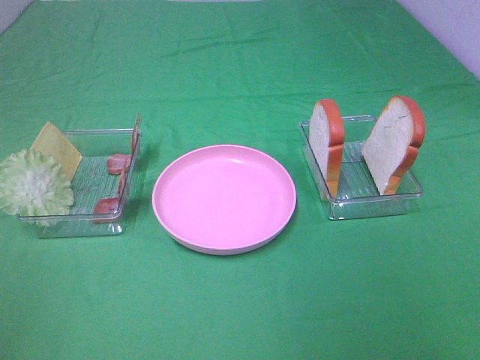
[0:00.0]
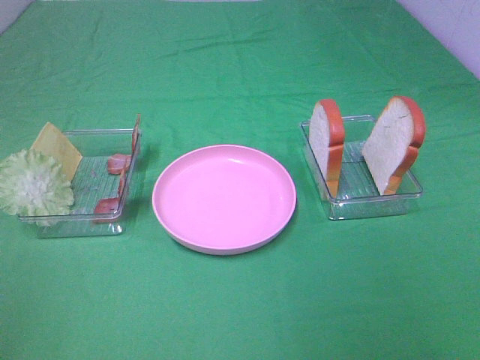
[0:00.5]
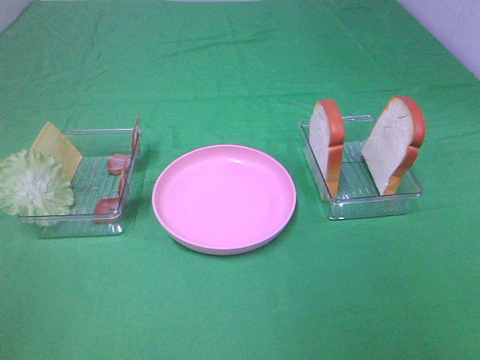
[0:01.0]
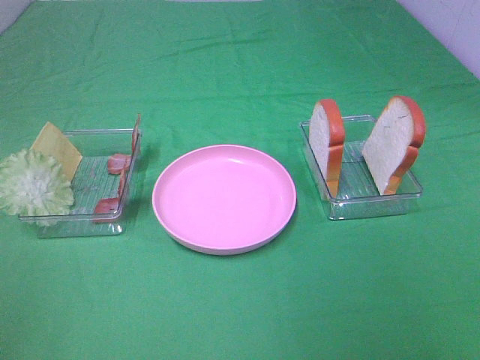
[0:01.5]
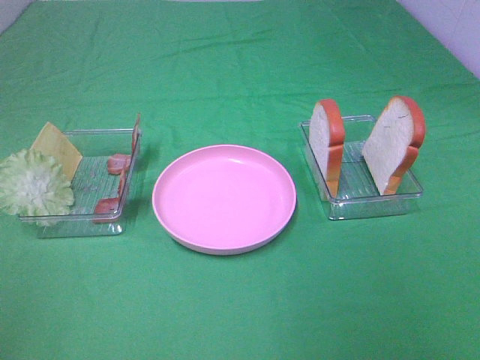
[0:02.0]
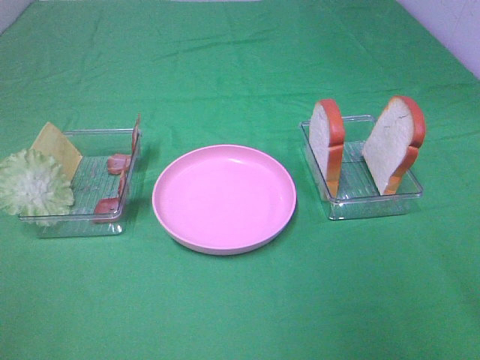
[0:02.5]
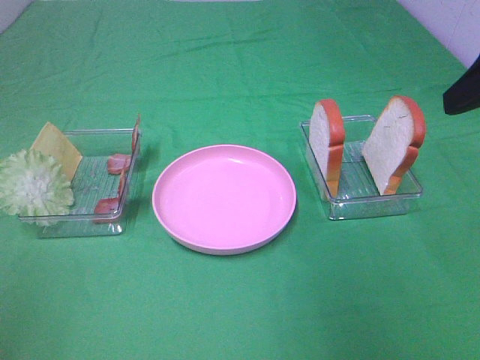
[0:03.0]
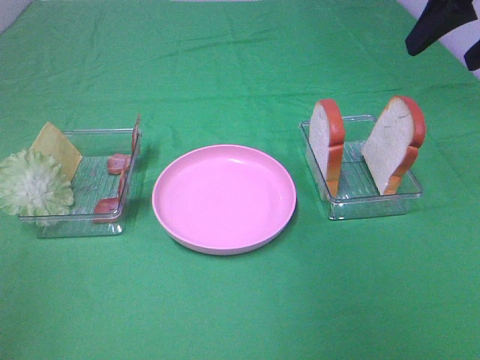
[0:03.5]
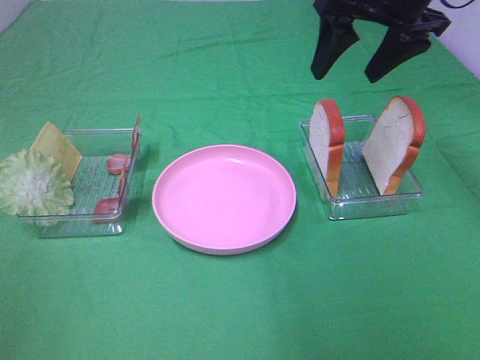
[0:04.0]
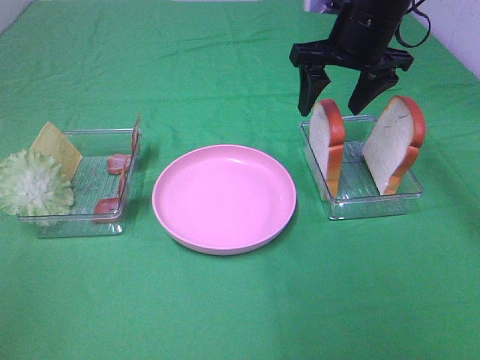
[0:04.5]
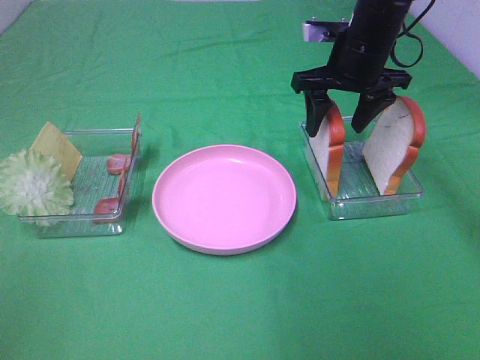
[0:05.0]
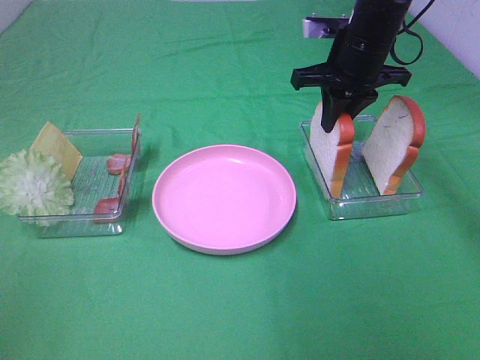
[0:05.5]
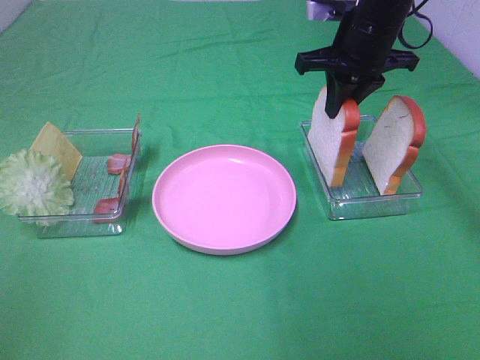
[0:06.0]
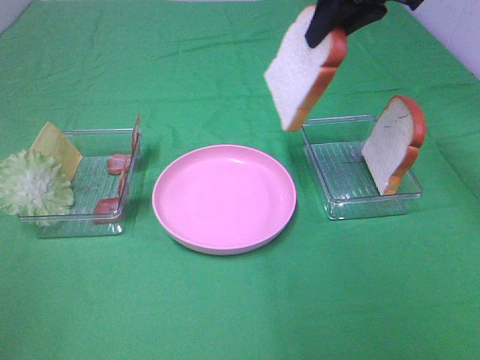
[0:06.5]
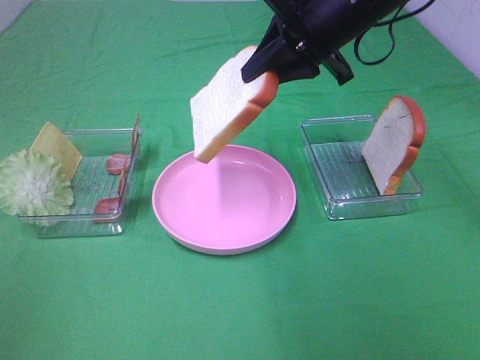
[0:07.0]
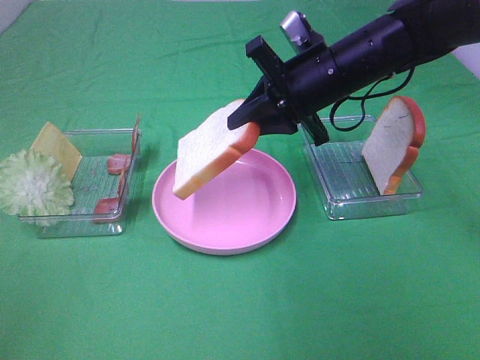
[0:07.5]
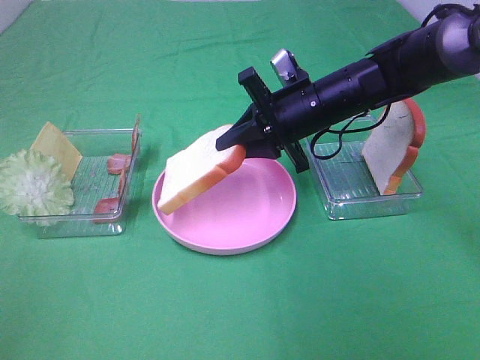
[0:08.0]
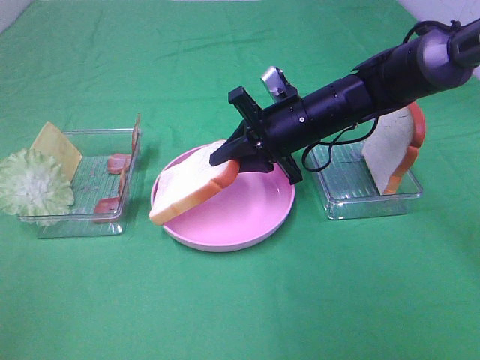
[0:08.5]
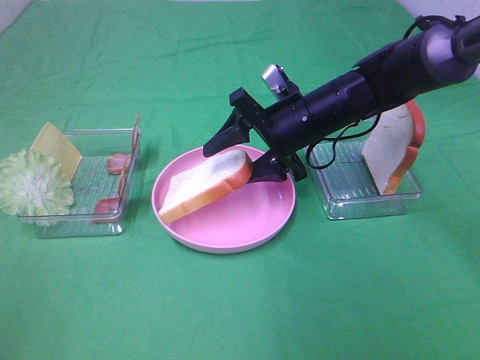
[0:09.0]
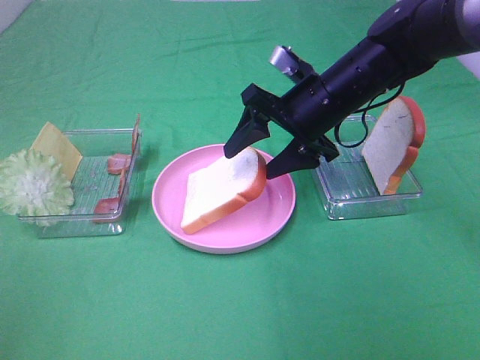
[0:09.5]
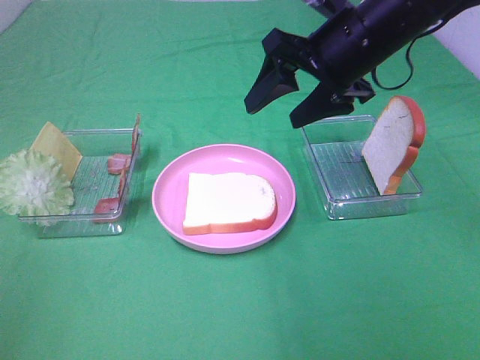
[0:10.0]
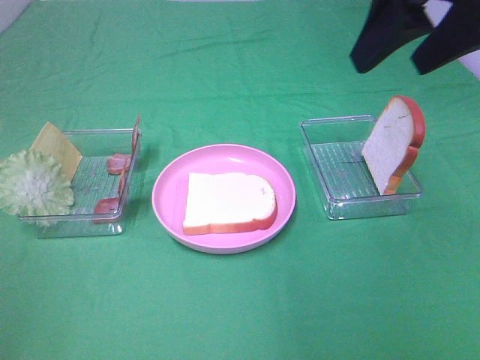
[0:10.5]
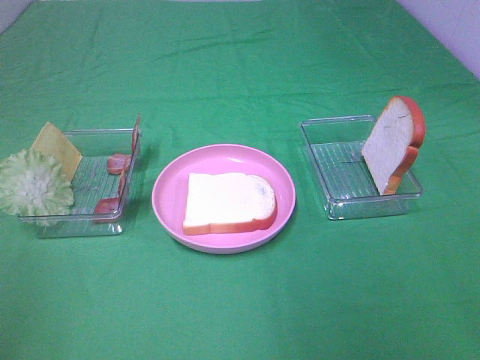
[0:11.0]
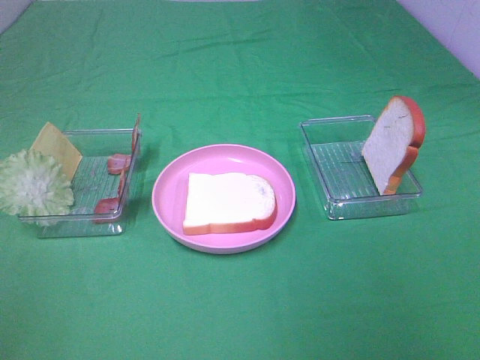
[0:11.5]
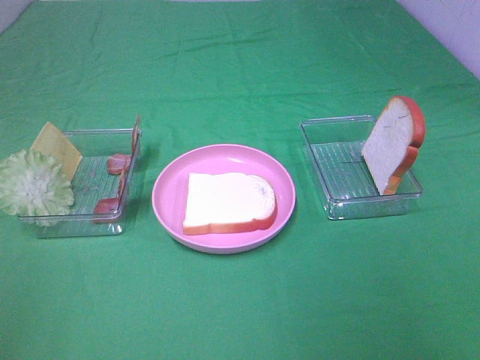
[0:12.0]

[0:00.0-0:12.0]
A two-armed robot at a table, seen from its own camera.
Task of the whole recording: Make sandwiches.
Step, 0:00.0 to 0:05.5: Right hand:grab the bread slice.
Step, 0:06.0 to 0:09.5: Right hand:place the bread slice on the plate.
0:02.0 to 0:04.0: The right gripper heads forward, covering some 40 cm.
0:04.0 to 0:06.0: The right gripper travels downward by about 5 cm, and closes its fingers.
0:06.0 to 0:08.0: The right gripper shifts about 10 cm downward and to the left.
0:08.0 to 0:10.0: The right gripper moves upward, some 10 cm, and opens.
0:10.0 to 0:12.0: The right gripper moves backward and to the right, about 35 cm.

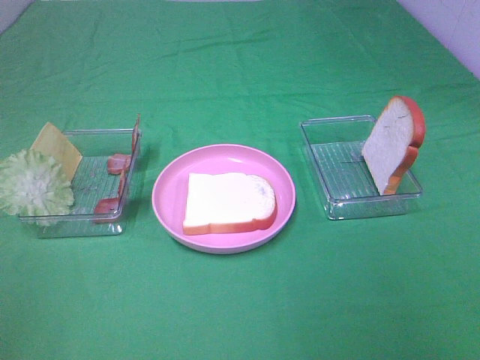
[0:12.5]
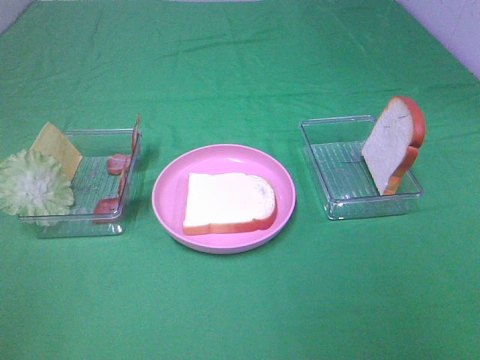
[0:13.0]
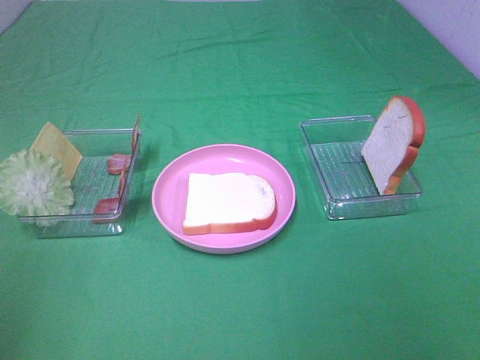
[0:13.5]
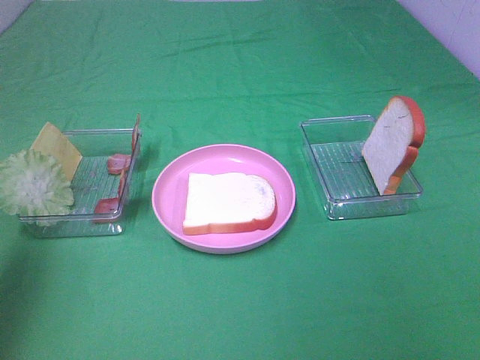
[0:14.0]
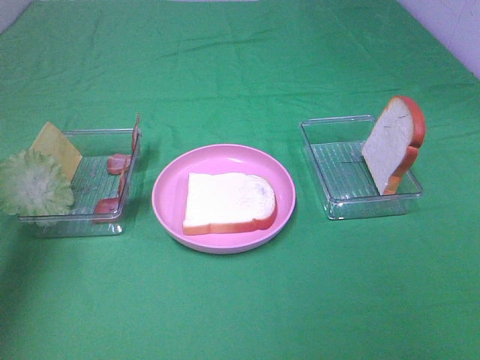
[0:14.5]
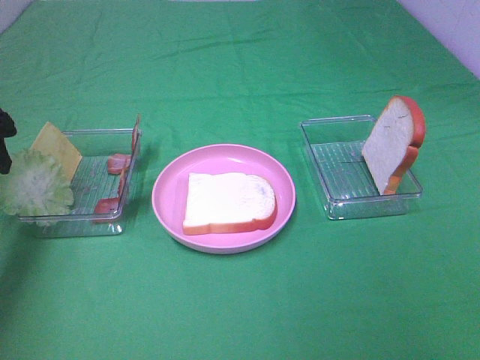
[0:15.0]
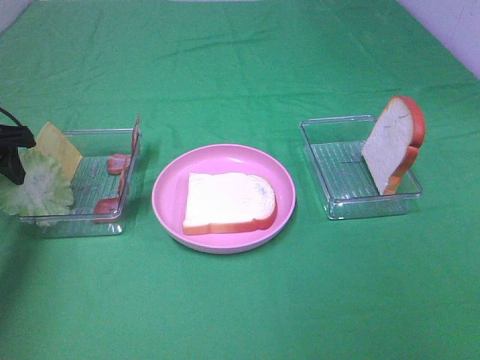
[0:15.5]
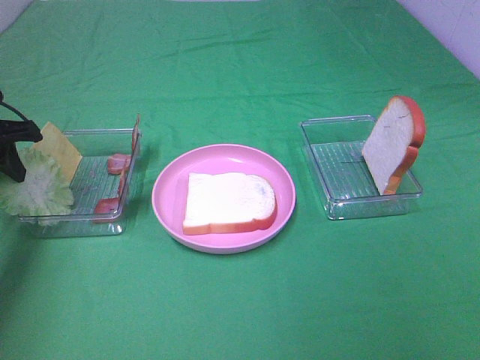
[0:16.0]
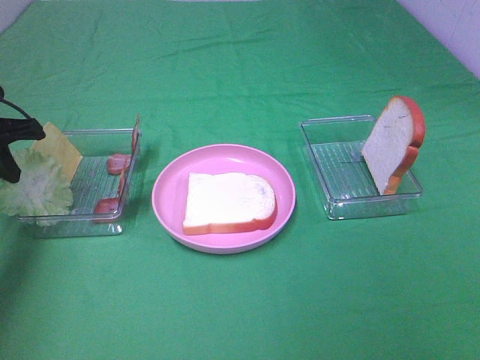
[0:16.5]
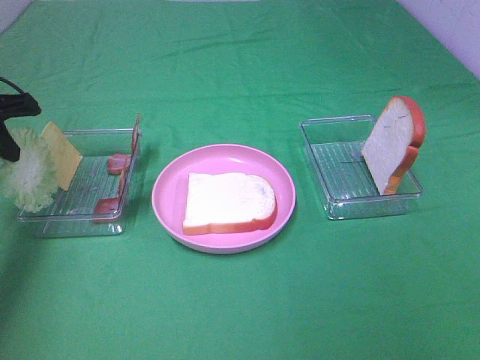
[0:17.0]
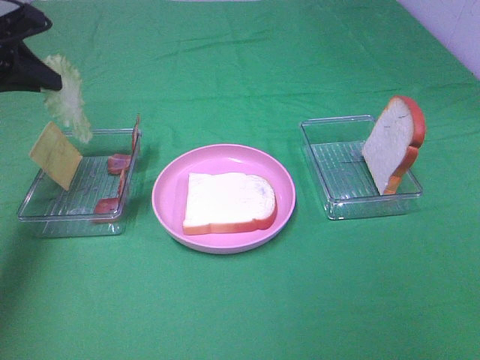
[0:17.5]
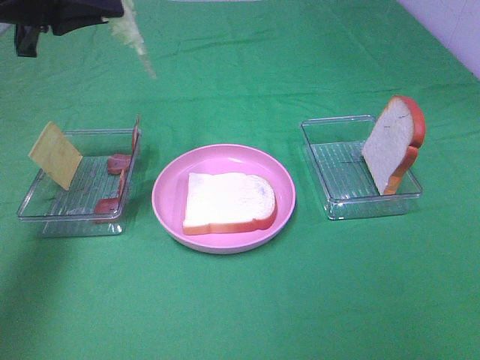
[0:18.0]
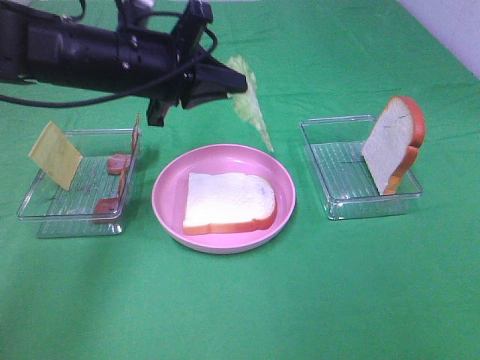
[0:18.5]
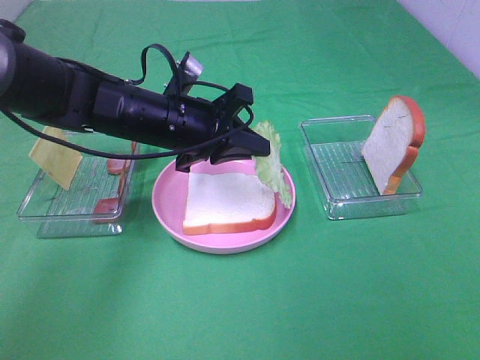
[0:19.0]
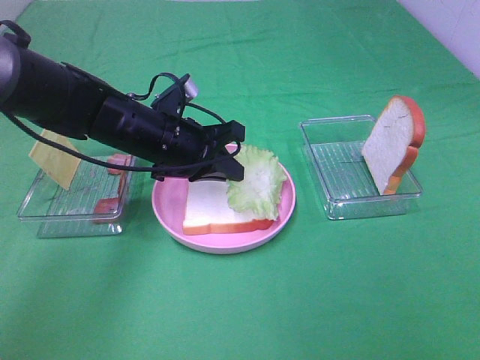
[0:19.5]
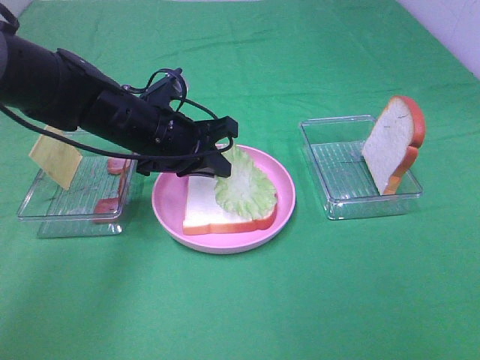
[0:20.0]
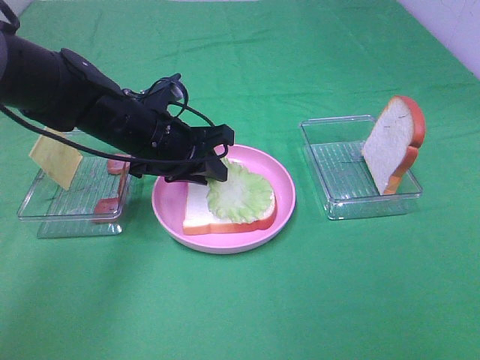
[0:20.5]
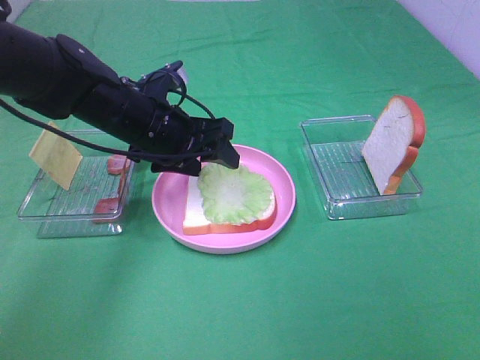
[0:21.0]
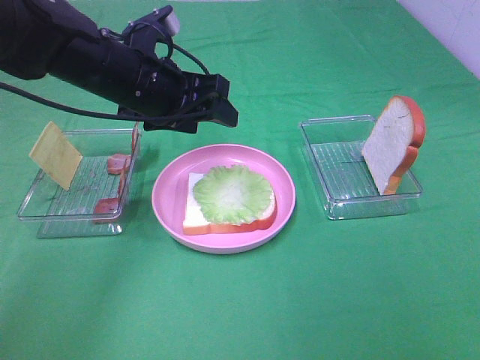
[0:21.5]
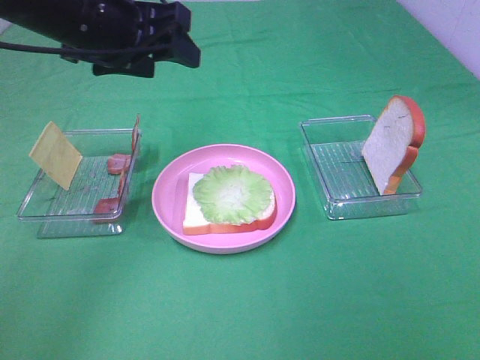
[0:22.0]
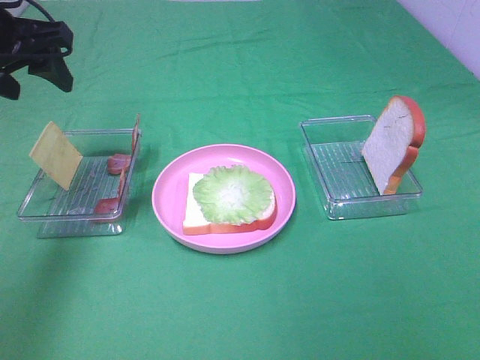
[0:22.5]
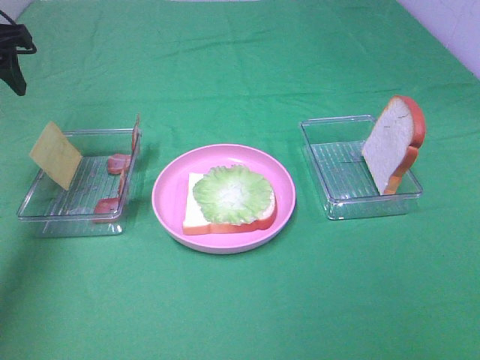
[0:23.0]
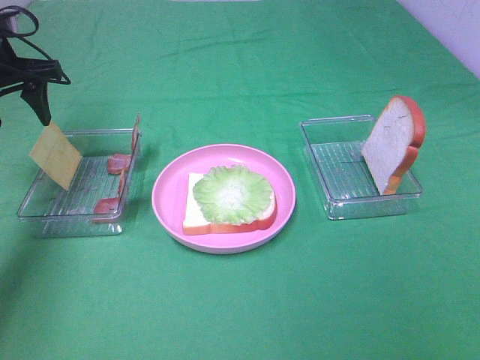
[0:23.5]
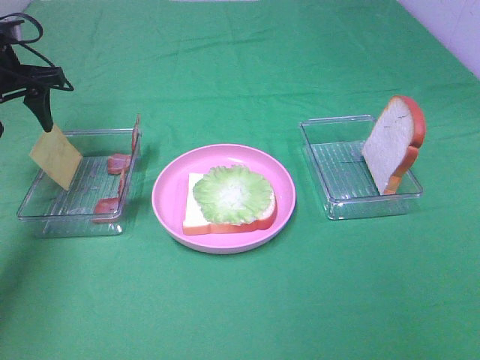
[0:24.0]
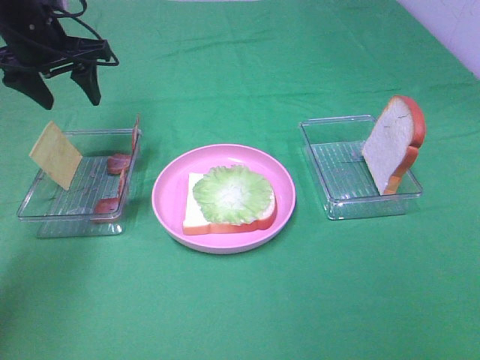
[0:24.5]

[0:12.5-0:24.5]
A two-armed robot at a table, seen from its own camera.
Task of the whole recording: Make sandwiches.
Step, 0:12.5 to 0:16.0: Left hand:grab the lettuce slice.
Step, 0:16.5 to 0:21.0: Left hand:place the lettuce slice on the bread slice.
0:12.5 to 0:14.5: The left gripper shifts some 30 cm forward.
0:14.5 to 0:16.5: The left gripper goes some 10 cm downward and forward, and closes its fingers.
0:16.5 to 0:18.5: The left gripper shifts approximately 20 cm to the right.
0:18.5 to 0:20.5: The left gripper heads downward, covering roughly 10 cm.
0:20.5 to 0:22.5: The left gripper heads to the left and upward, covering approximately 20 cm, and opens.
0:22.5 to 0:24.5: The left gripper moves forward, roughly 10 cm.

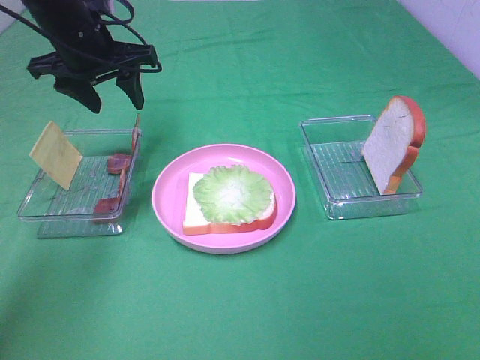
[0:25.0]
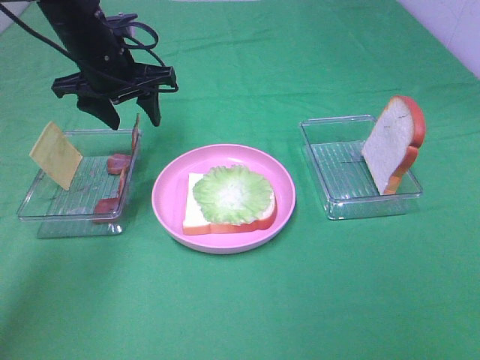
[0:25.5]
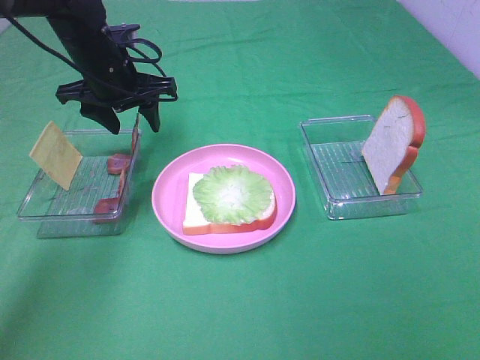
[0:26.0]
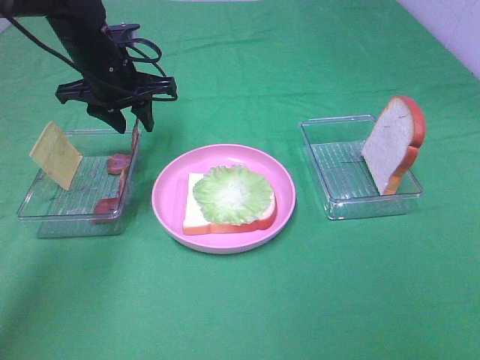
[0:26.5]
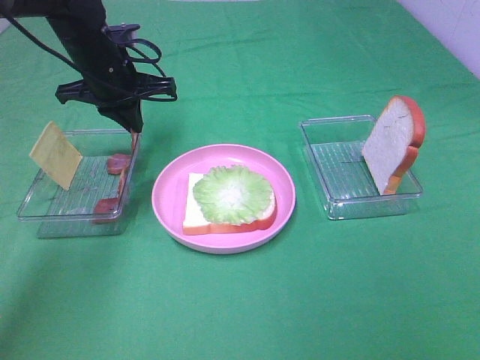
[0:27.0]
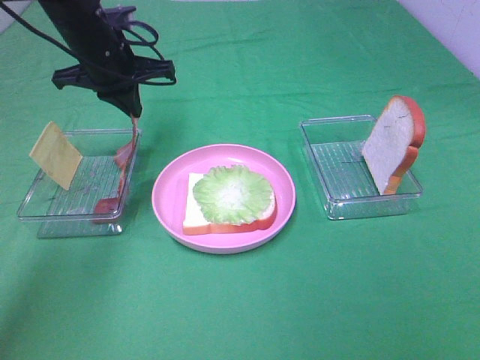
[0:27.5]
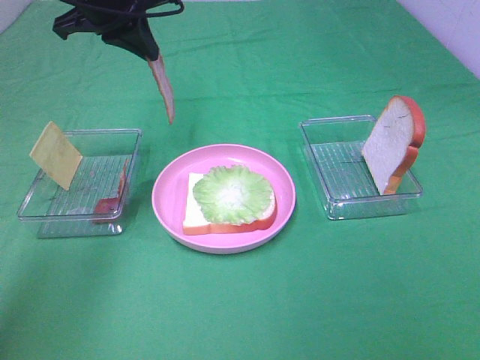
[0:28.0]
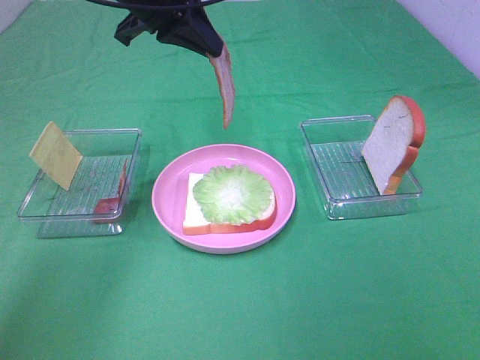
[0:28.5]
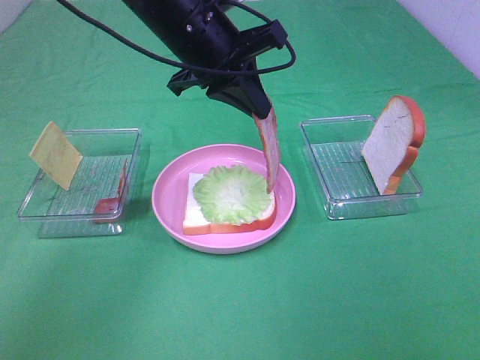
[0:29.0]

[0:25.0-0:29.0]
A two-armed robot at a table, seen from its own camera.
Task of the whole recording: Make sandwiches.
Step, 0:25.0 to 0:27.0: Left hand:grab the bacon.
0:25.0 to 0:27.0: The left gripper closes.
0:27.0 to 0:29.0: The left gripper shifts about 15 cm to the right, upward and backward.
